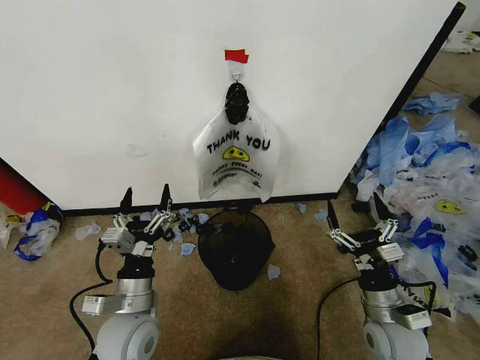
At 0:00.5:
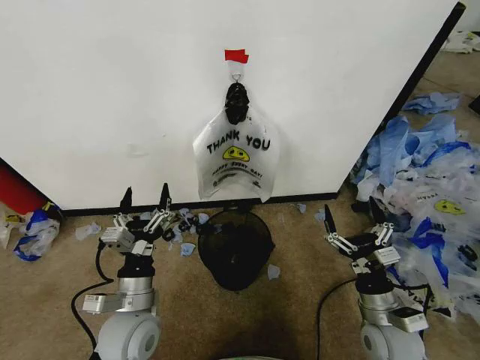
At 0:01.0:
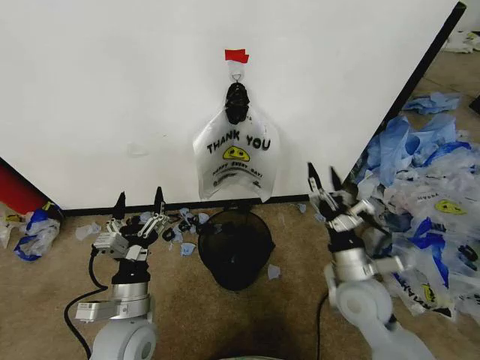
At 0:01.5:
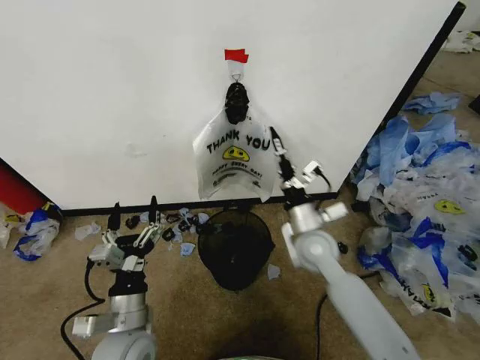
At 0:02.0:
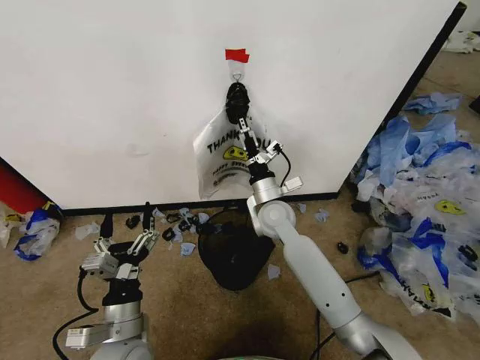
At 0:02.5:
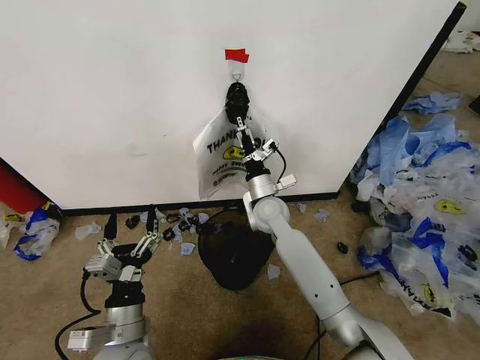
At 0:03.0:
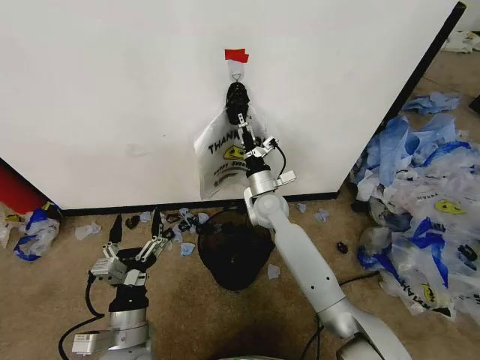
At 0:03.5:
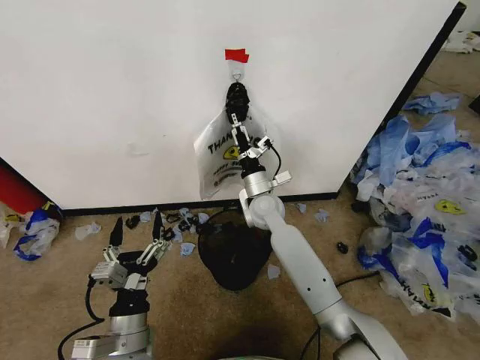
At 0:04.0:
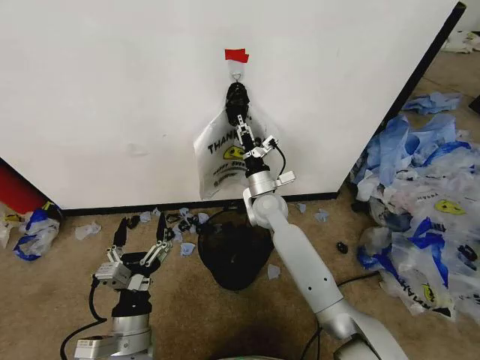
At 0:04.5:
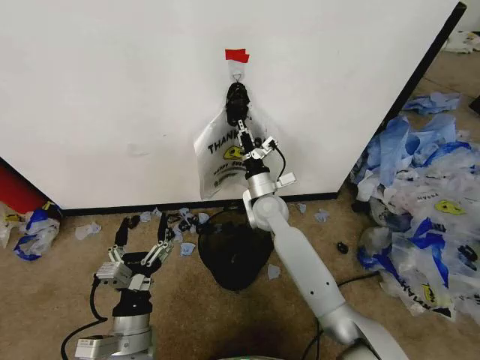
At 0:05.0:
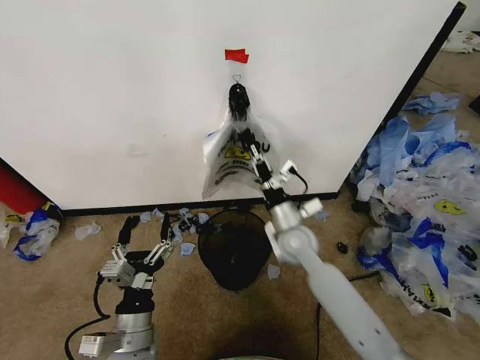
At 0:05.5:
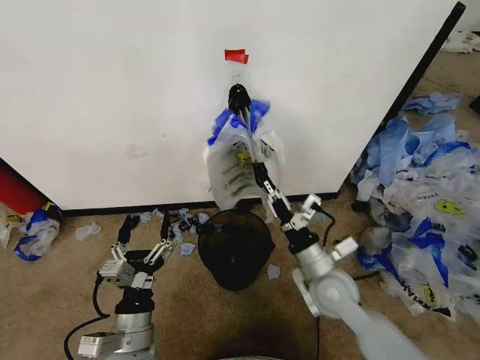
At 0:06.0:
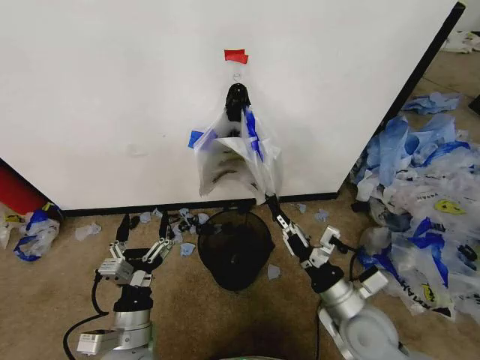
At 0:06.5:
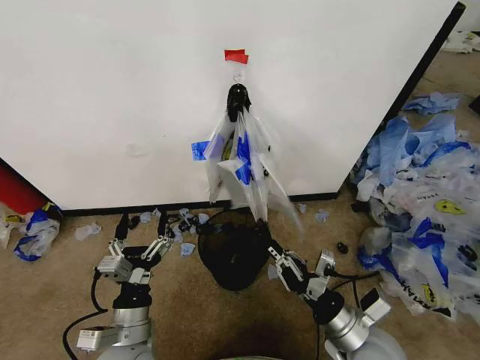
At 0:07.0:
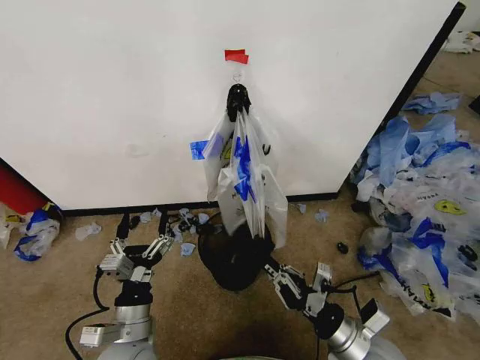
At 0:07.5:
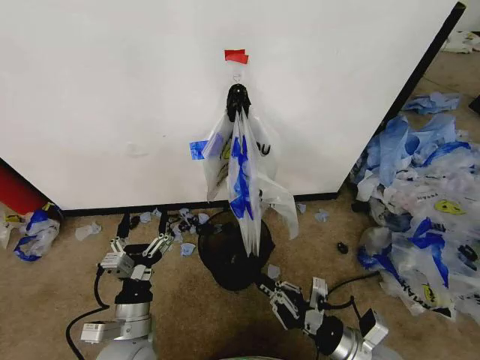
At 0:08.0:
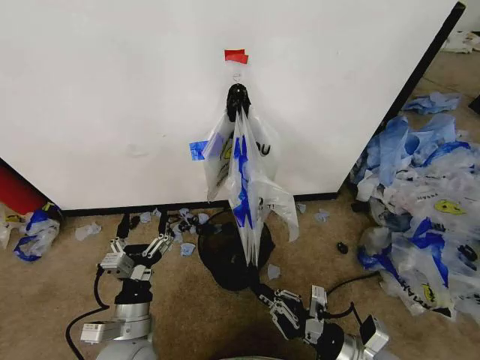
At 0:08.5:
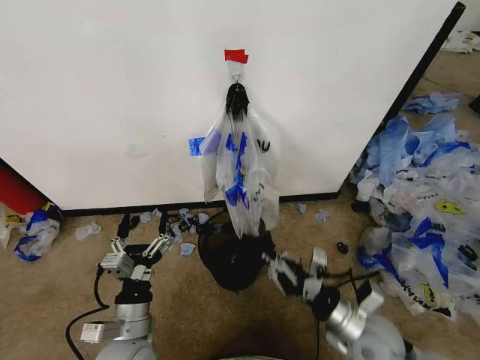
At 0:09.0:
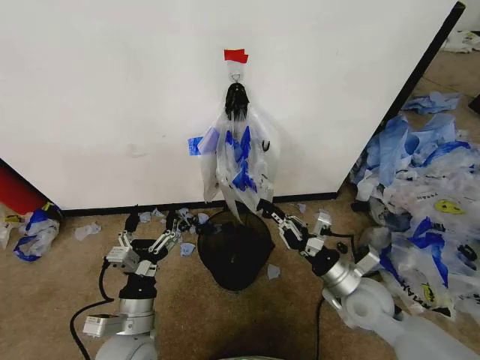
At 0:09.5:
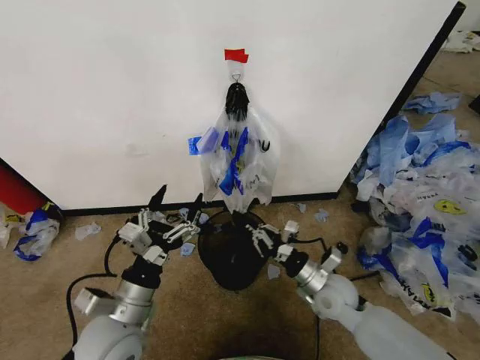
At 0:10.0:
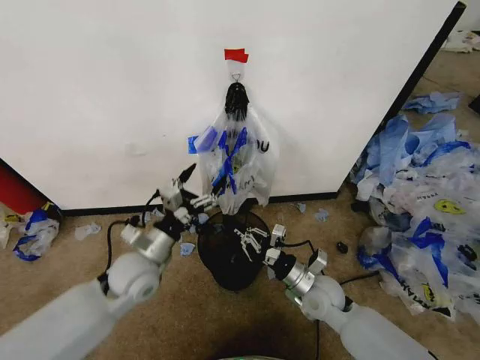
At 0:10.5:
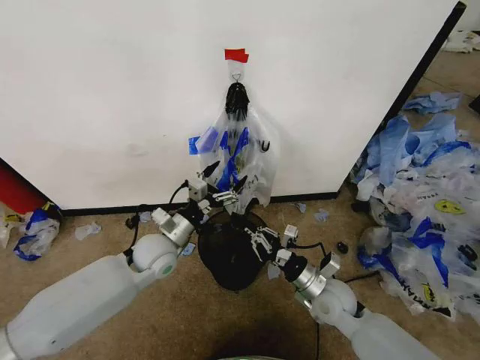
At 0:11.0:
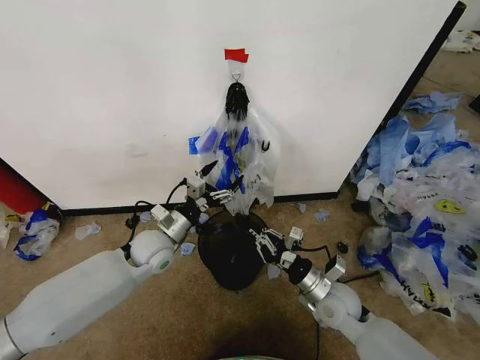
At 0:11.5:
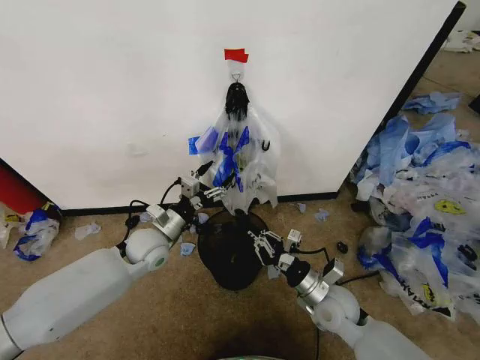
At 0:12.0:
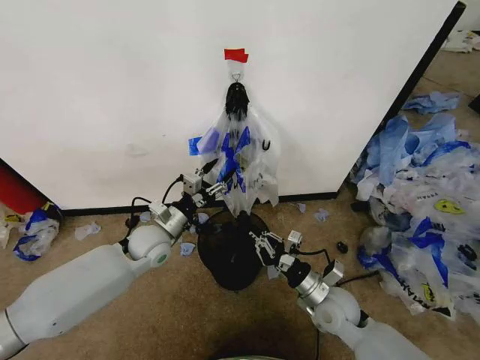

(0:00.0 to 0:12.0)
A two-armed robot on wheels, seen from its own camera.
Task of the whole recording: Pick up the garbage bag from the wall and place it over the trash bin.
0:02.0 - 0:04.0: The right gripper closes its fingers.
0:04.0 - 0:06.0: The right gripper moves backward and to the right, some 30 cm.
0:06.0 - 0:08.0: The right gripper moves backward and downward, approximately 10 cm.
0:08.0 - 0:10.0: The grippers both shift forward by approximately 15 cm.
0:10.0 - 0:12.0: The left gripper travels forward by some 10 cm.

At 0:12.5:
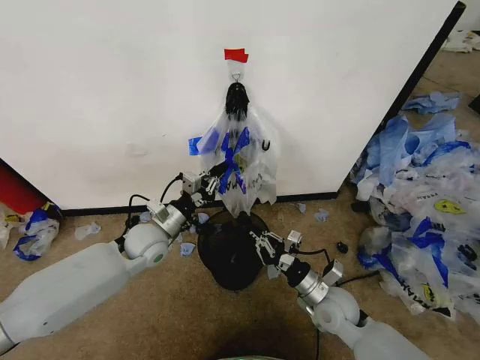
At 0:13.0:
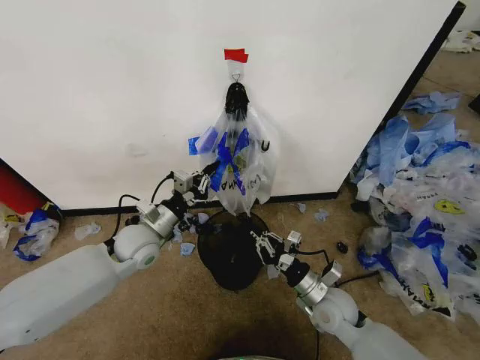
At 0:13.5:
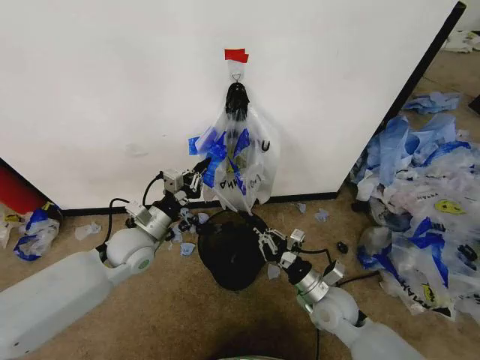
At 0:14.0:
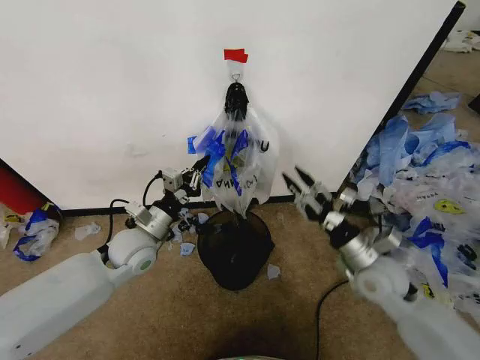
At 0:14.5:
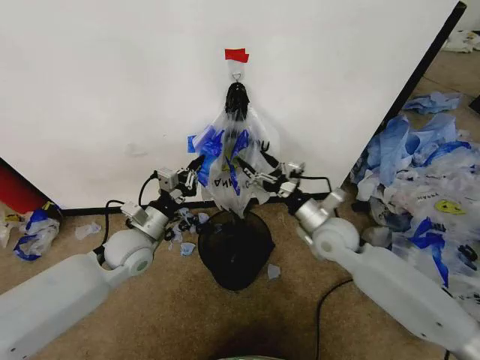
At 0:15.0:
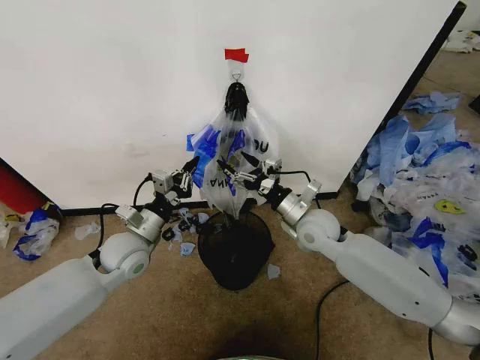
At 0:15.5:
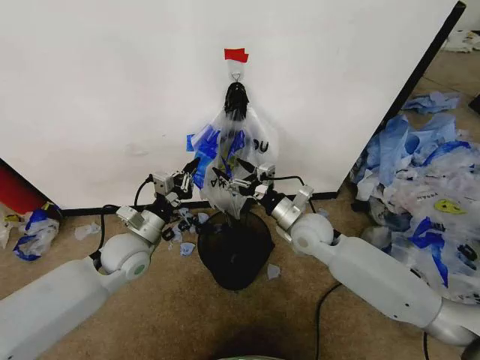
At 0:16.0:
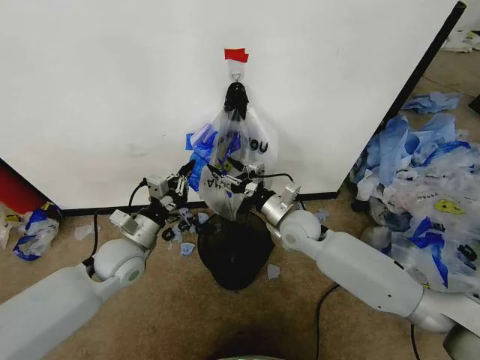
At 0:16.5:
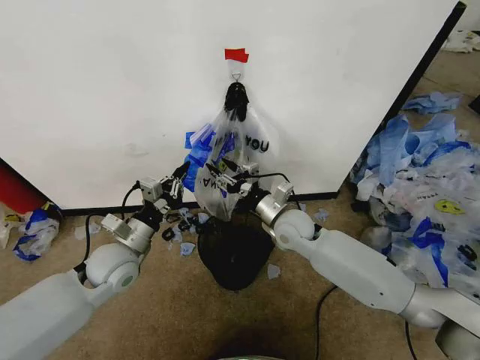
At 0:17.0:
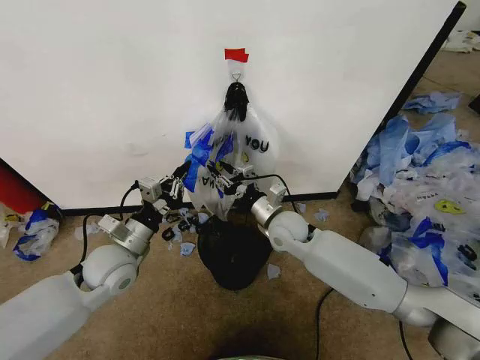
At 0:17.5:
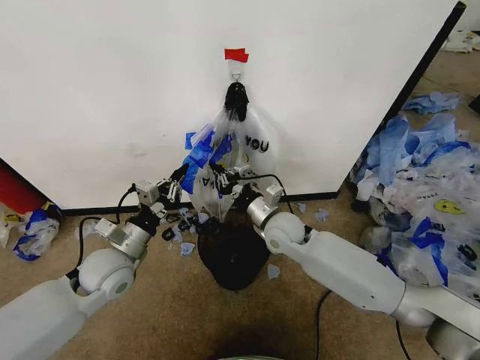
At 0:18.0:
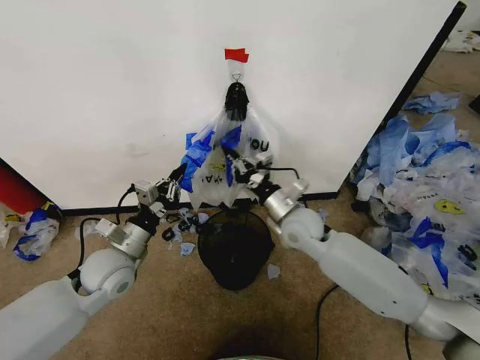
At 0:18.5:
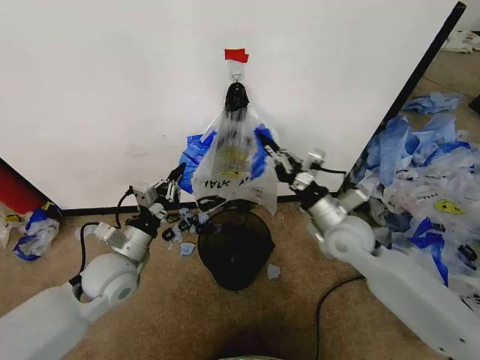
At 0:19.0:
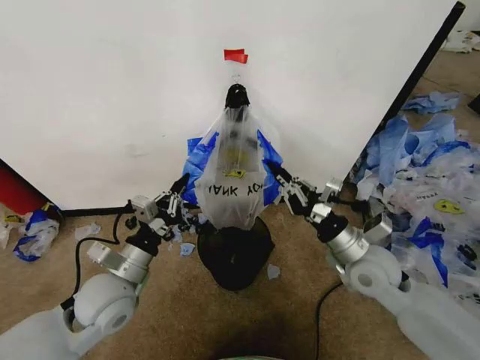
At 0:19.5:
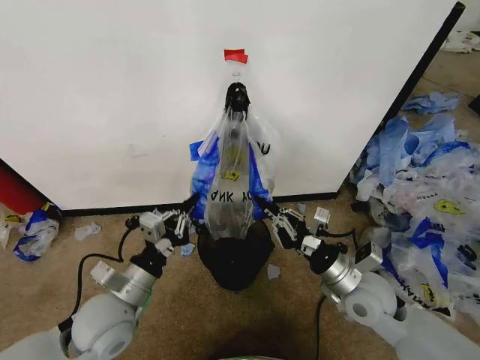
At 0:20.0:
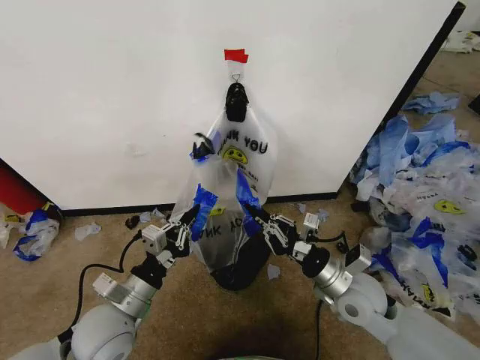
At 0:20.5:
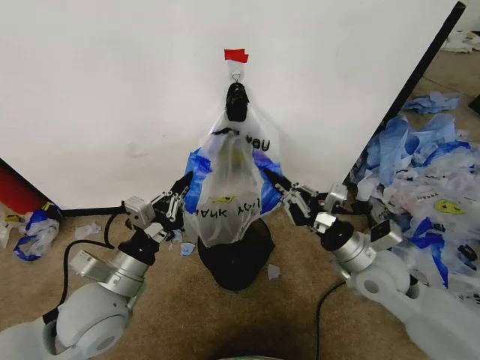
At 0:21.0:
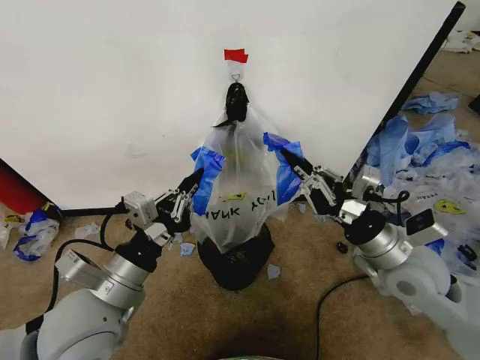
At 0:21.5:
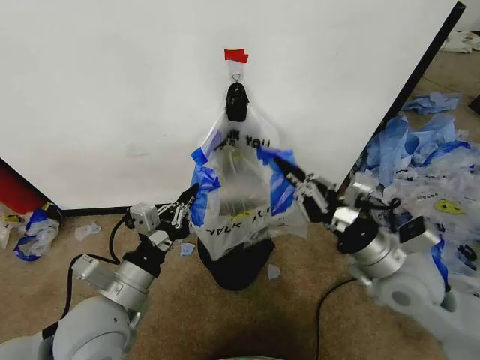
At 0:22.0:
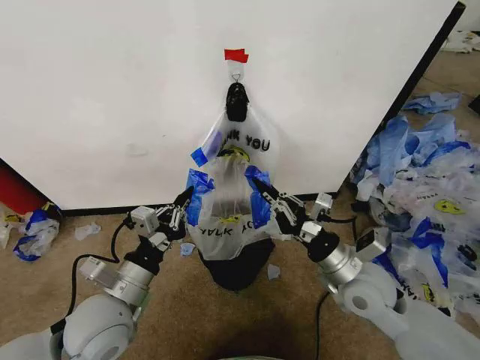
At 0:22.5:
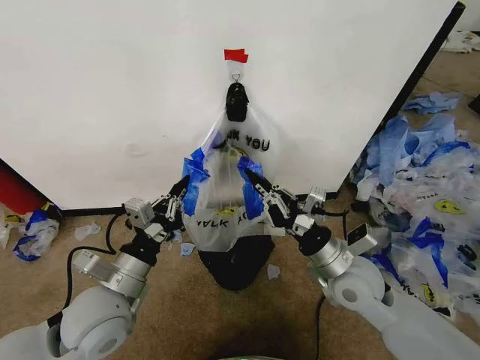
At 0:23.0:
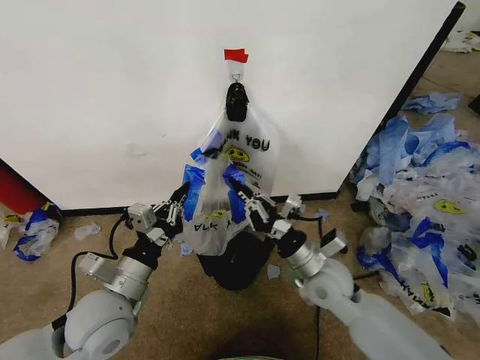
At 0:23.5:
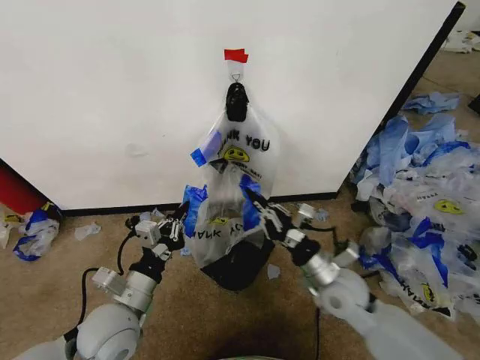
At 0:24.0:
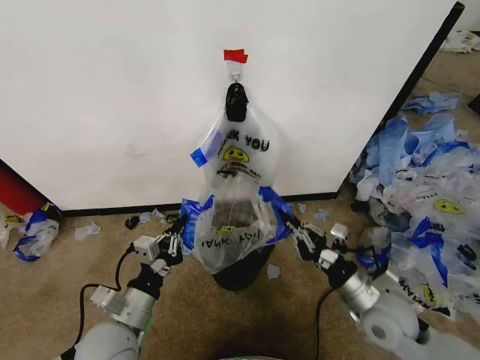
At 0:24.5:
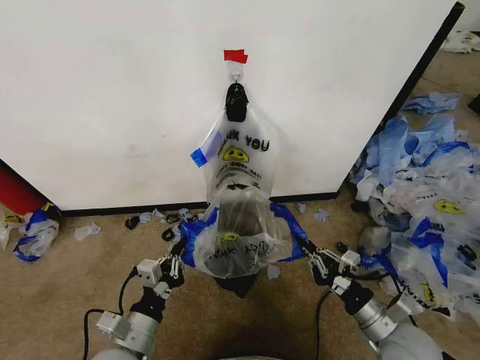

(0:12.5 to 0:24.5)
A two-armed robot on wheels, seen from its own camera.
Task of the whole recording: Pick up the garbage bag from the wall and place it over the trash bin.
0:12.5 - 0:14.5: The right gripper goes some 15 cm upward and forward, and opens up.
0:14.5 - 0:16.5: The right gripper heads to the left, covering roughly 10 cm, and closes its fingers.
0:16.5 - 0:18.5: The right gripper is displaced to the right, backward and upward by approximately 15 cm, and closes.
0:18.5 - 0:20.5: The grippers both shift backward by about 5 cm.
0:22.5 - 0:24.5: The left gripper moves downward and backward, some 15 cm, while the right gripper is displaced to the right, downward and backward by approximately 15 cm.

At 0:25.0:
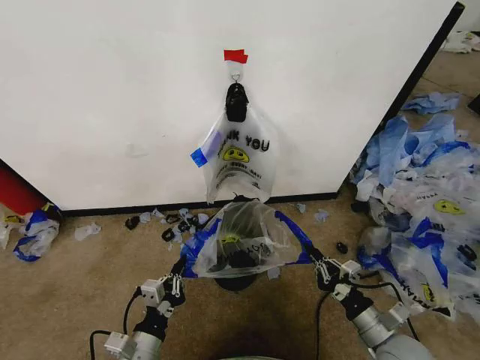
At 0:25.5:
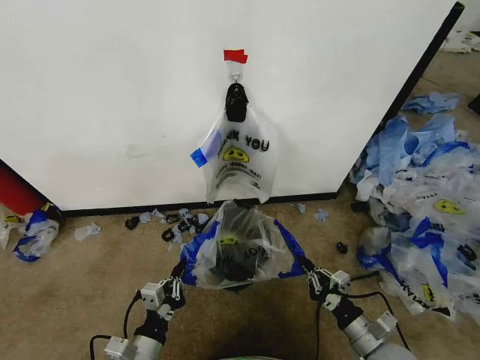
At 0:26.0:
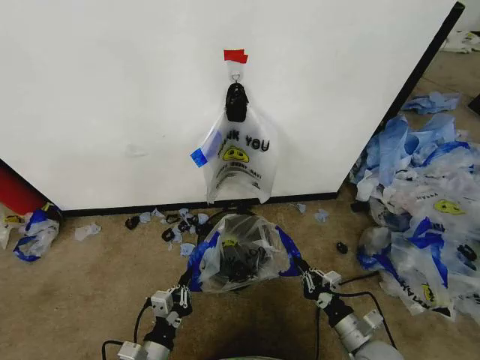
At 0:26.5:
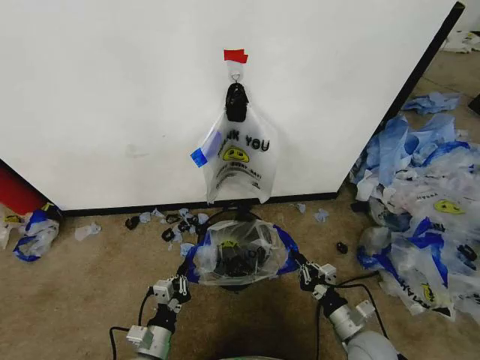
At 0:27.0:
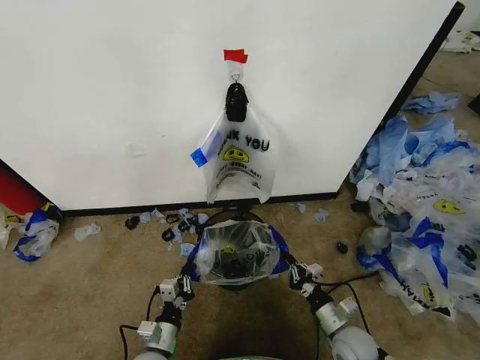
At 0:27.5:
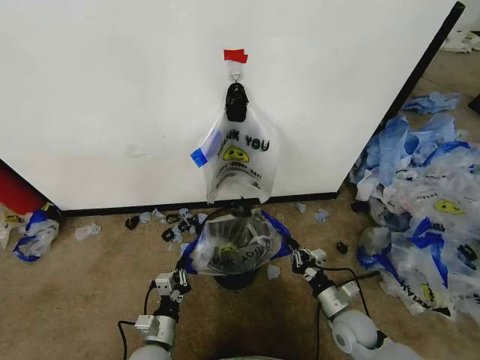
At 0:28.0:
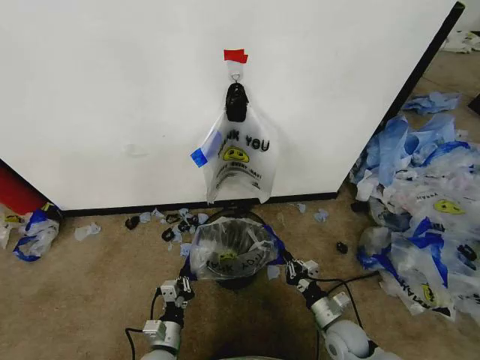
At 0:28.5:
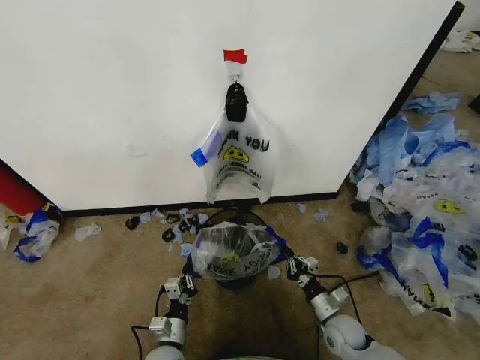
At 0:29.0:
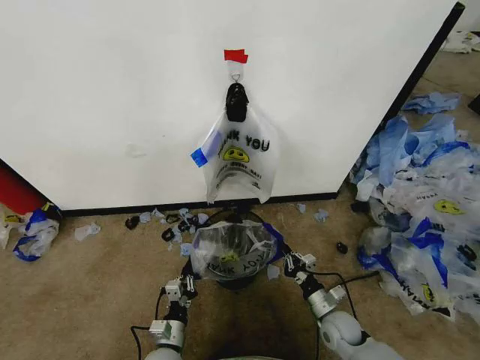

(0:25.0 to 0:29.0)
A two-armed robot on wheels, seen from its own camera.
Task of the whole recording: Pick up the garbage bag from the wall and place it over the trash bin.
0:25.0 - 0:27.0: The right gripper is displaced downward and to the left by some 10 cm, while the left gripper travels downward by approximately 10 cm.
0:27.0 - 0:29.0: The left gripper goes approximately 5 cm downward. The right gripper changes place by roughly 5 cm.
